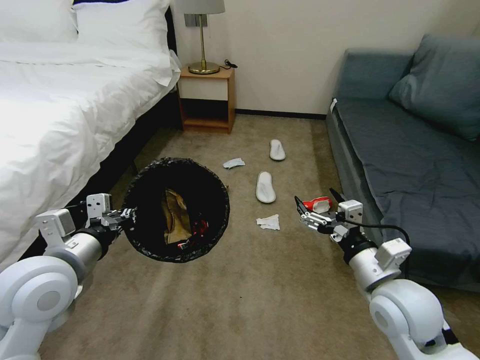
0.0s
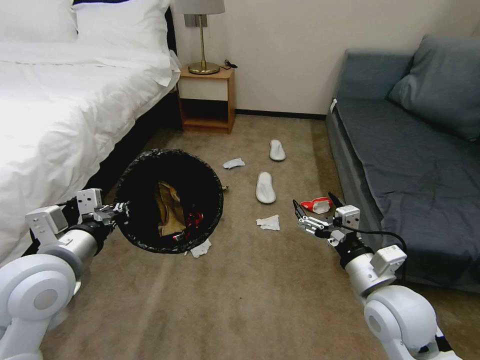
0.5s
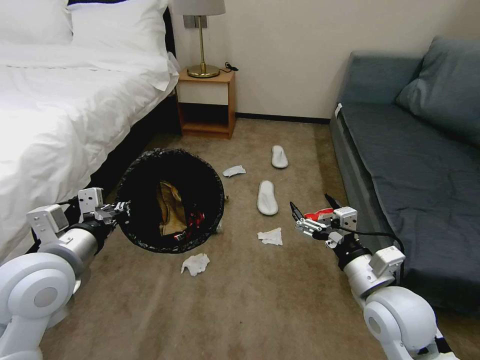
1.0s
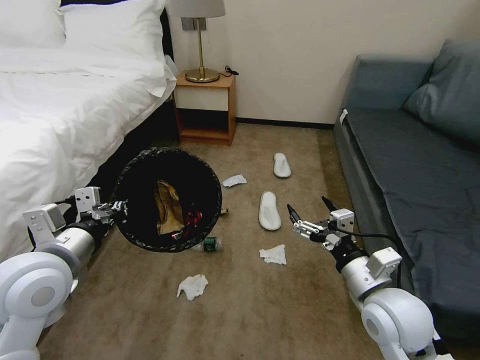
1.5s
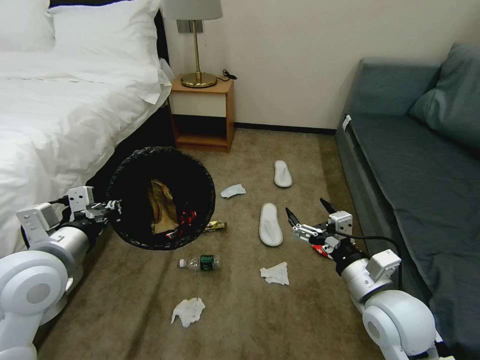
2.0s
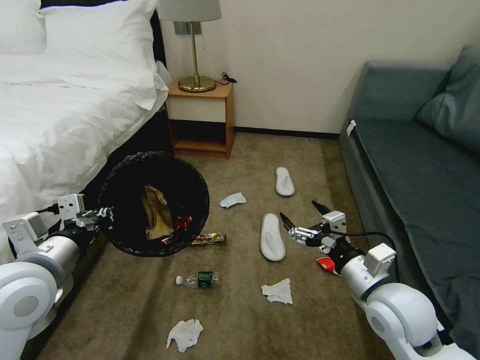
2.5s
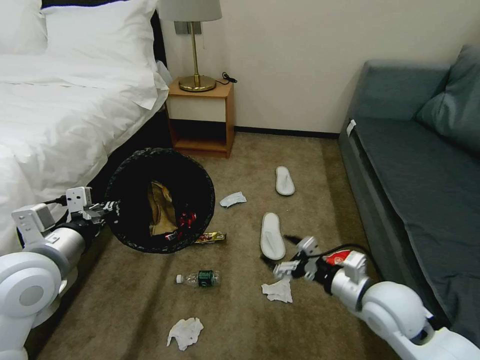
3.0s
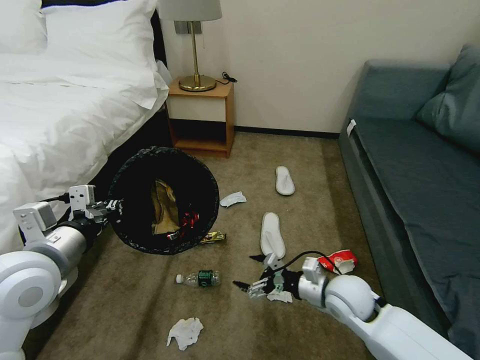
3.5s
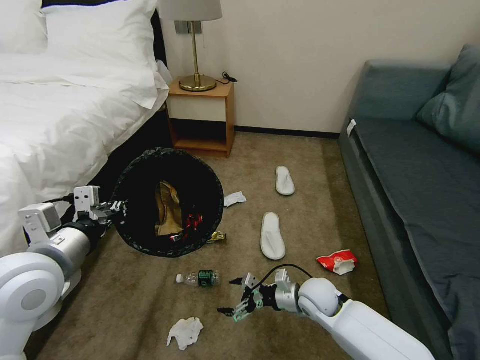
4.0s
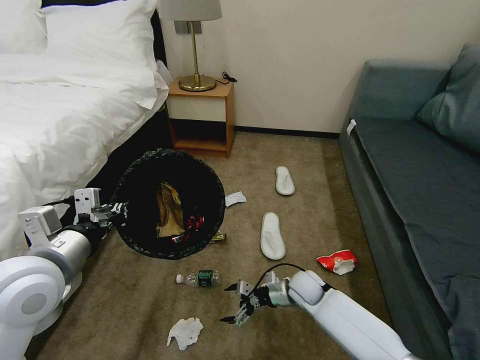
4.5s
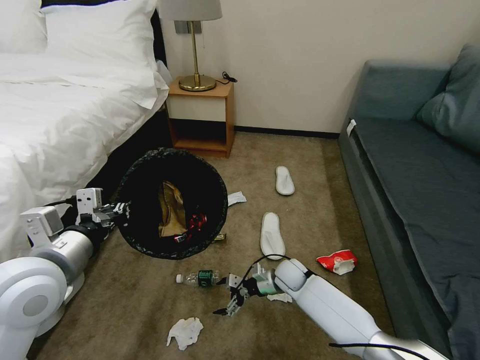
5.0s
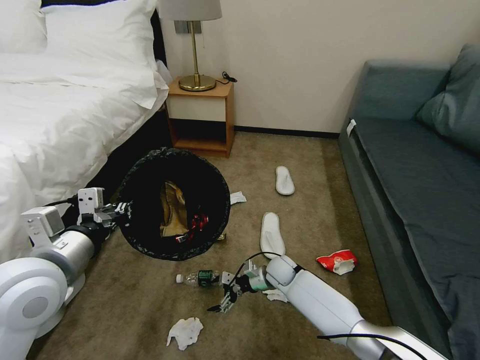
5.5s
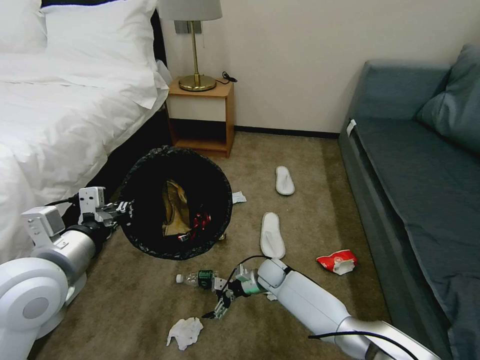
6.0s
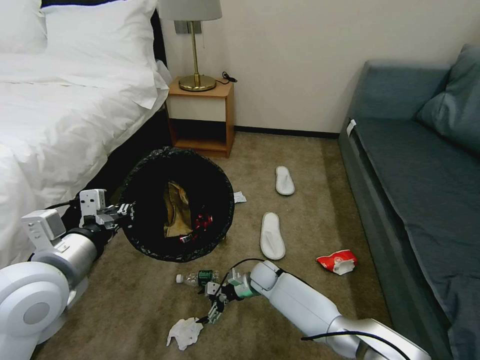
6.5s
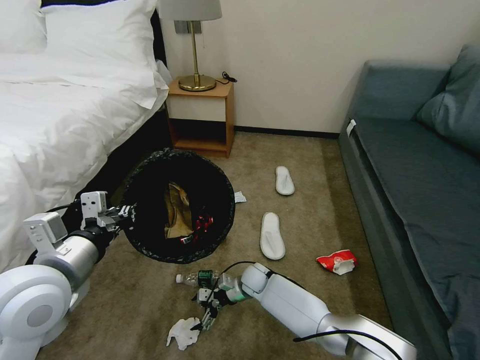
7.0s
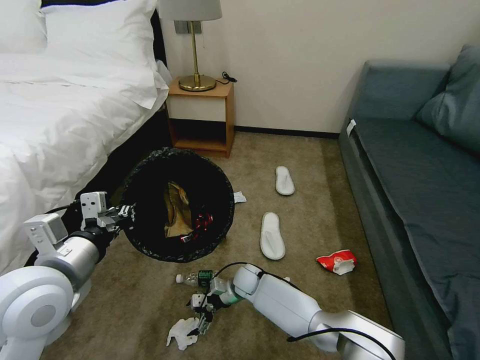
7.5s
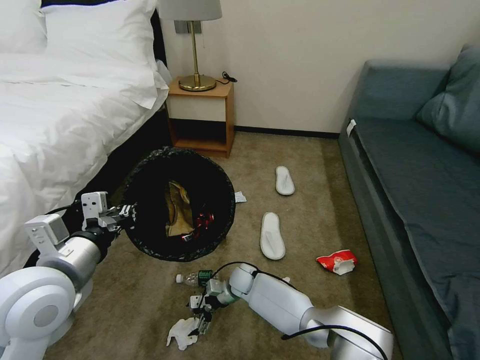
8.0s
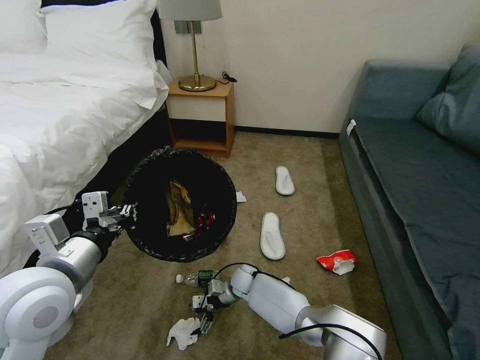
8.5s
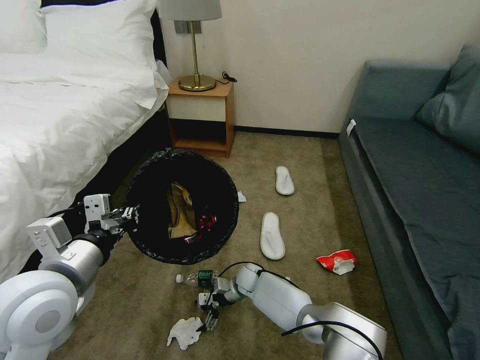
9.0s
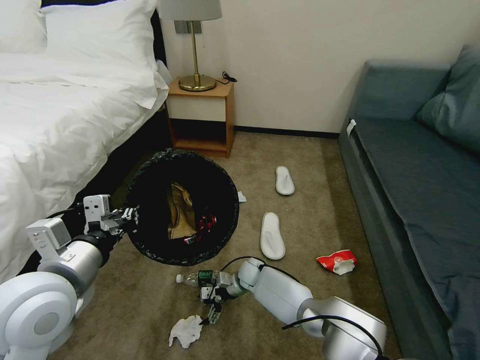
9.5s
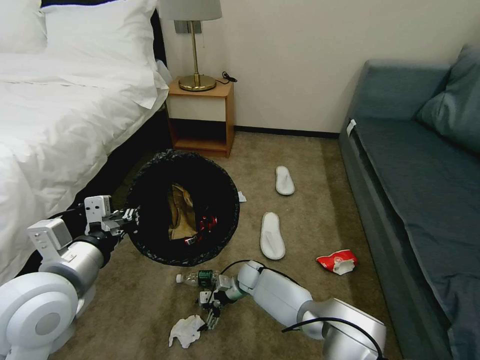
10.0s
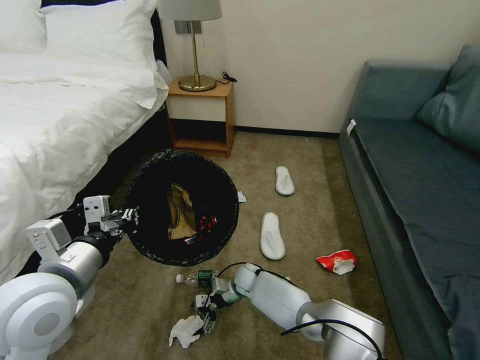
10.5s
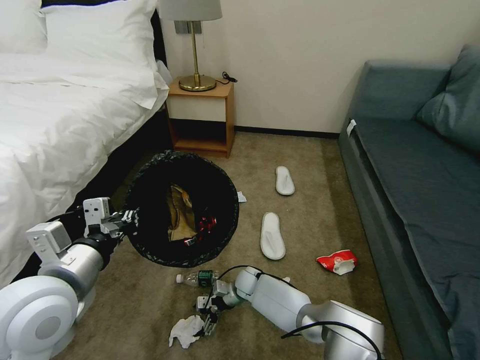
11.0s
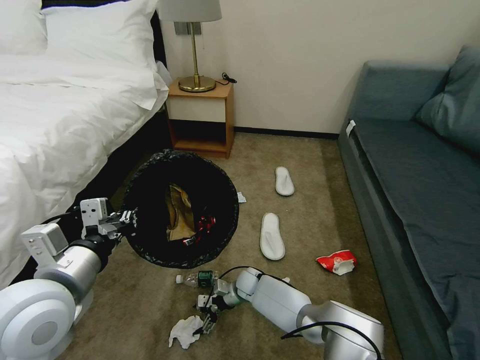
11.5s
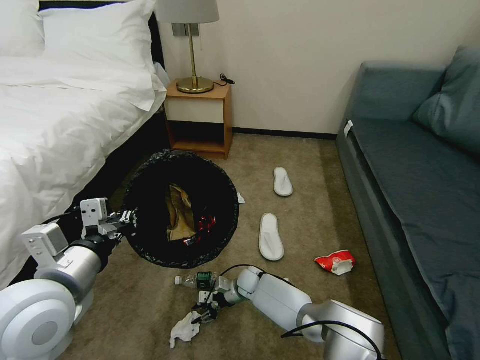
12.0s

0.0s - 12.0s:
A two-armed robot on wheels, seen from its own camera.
Task of the whole recording: Pick up the trash bin, then pick up the garbage on the floor and place it into the trash bin.
2.0s - 4.0s: The right gripper heads downward and forward, covering some 20 cm.
4.0s - 6.0s: The right gripper is displaced forward, to the left and downward by some 15 cm.
6.0s - 8.0s: The right gripper is displaced to the left by some 10 cm.
8.0s - 10.0s: The grippers move only a little.
10.0s - 12.0s: The right gripper closes up.

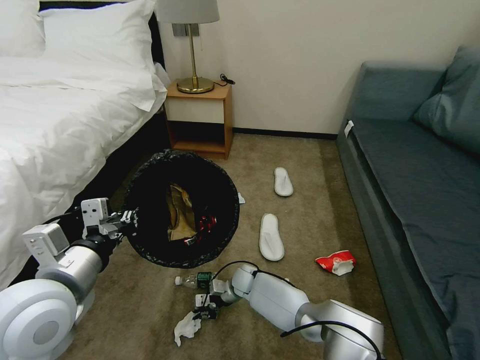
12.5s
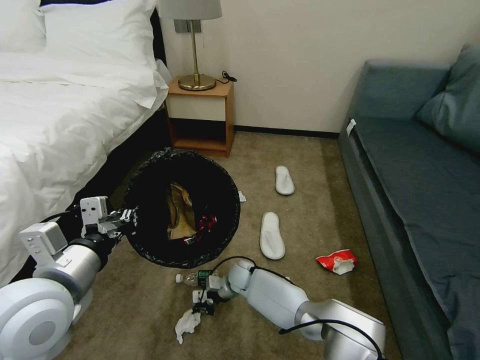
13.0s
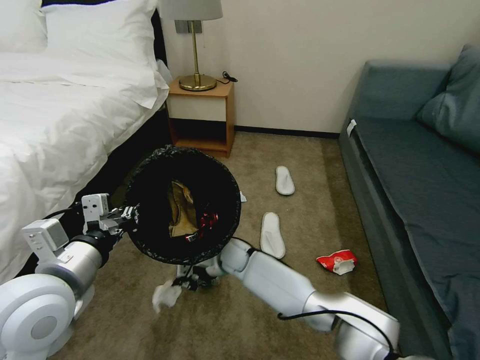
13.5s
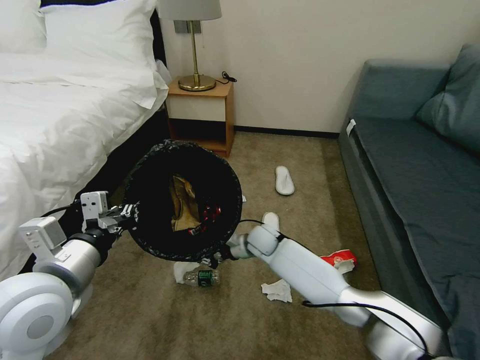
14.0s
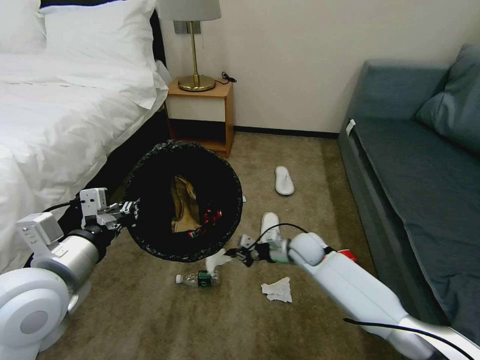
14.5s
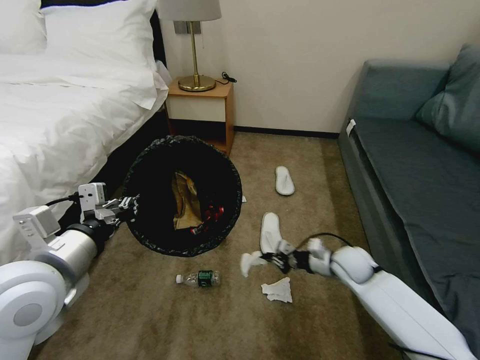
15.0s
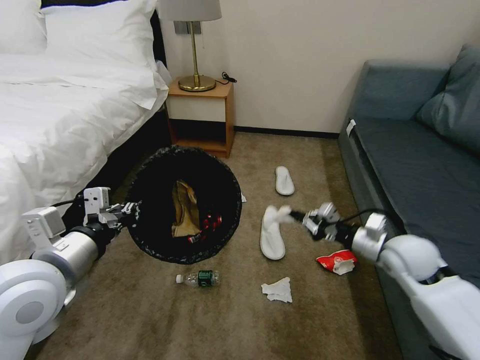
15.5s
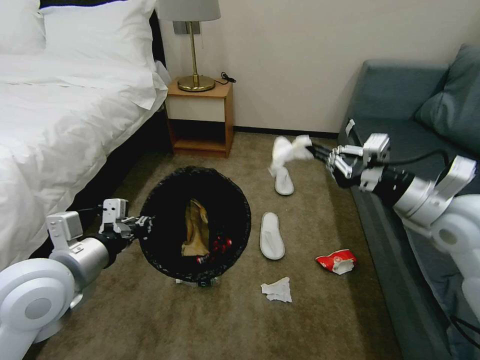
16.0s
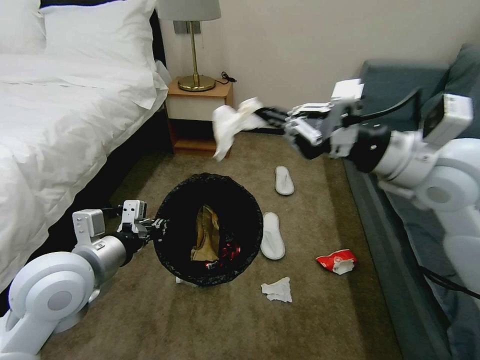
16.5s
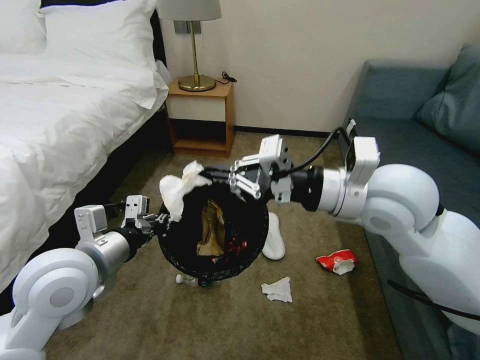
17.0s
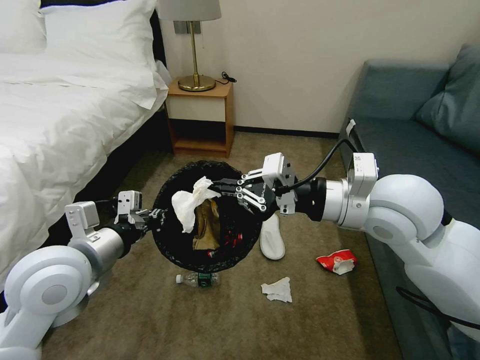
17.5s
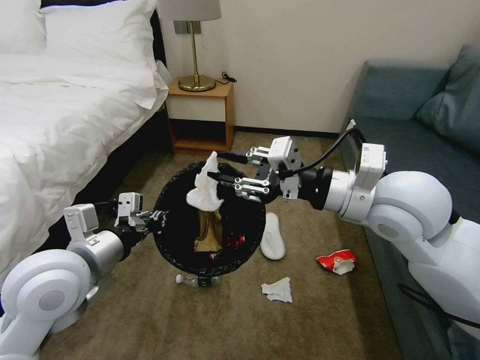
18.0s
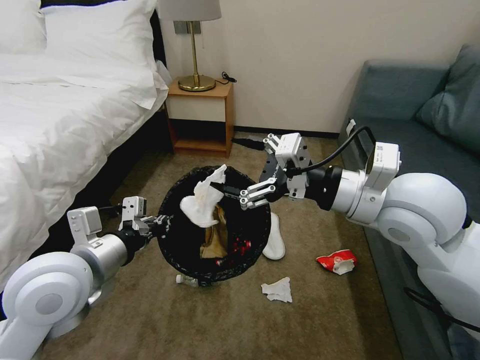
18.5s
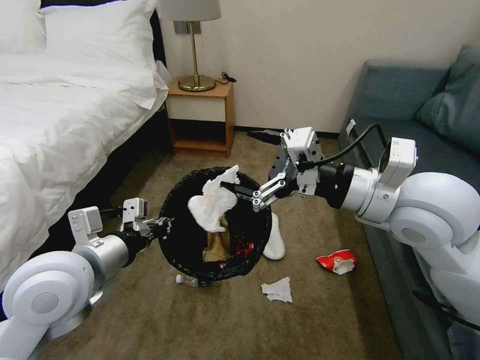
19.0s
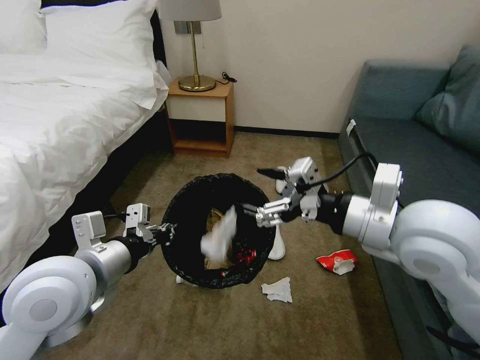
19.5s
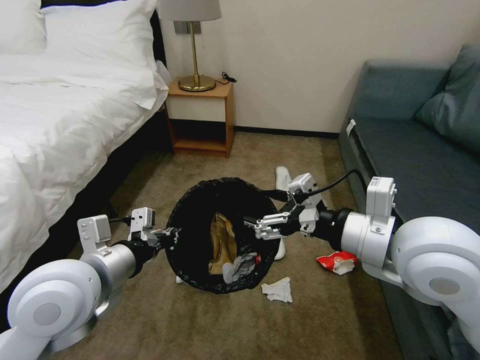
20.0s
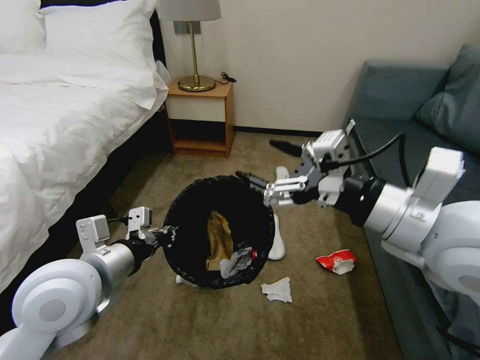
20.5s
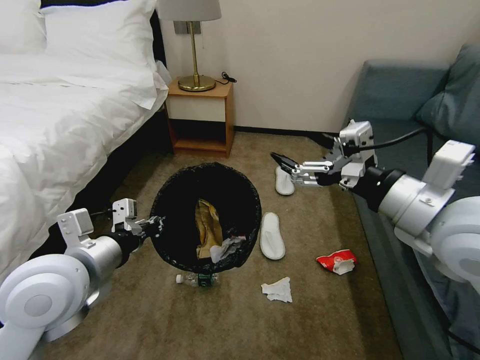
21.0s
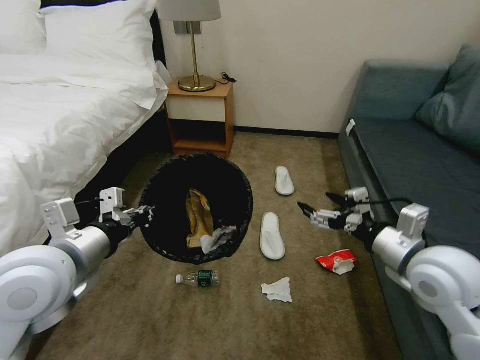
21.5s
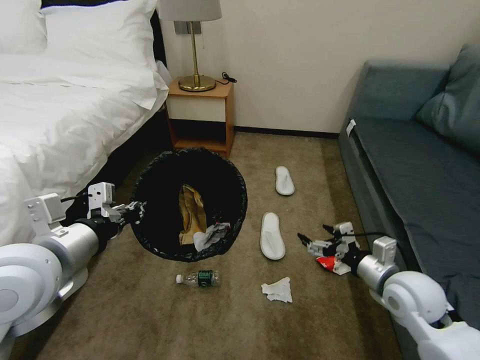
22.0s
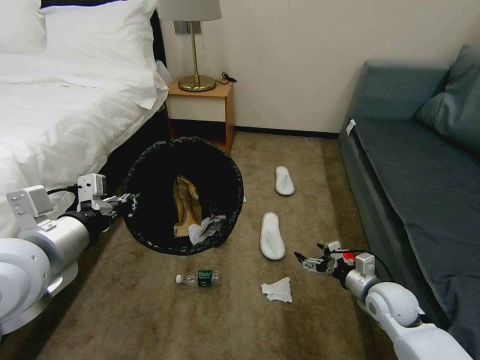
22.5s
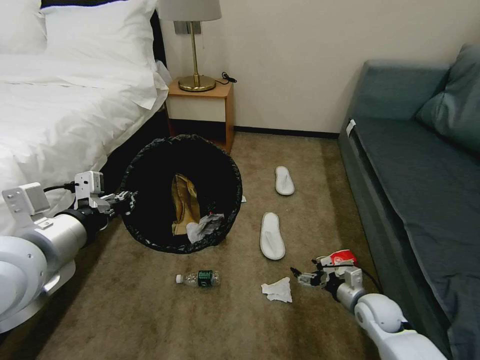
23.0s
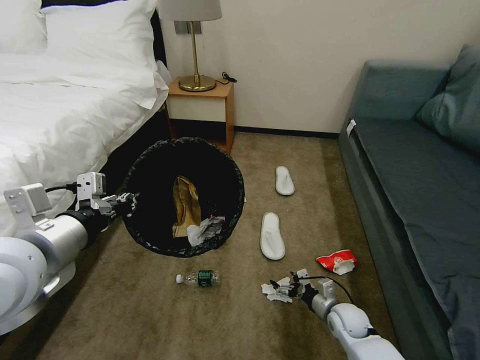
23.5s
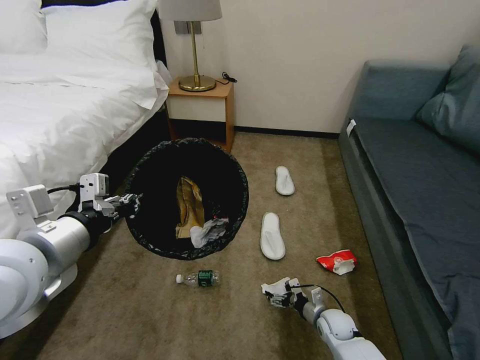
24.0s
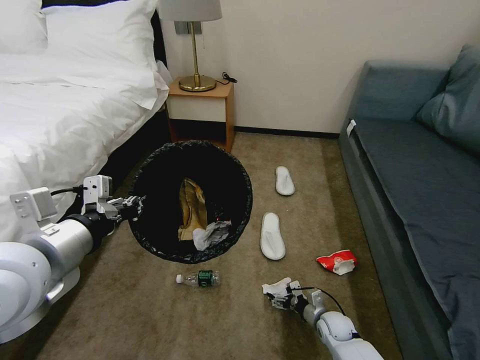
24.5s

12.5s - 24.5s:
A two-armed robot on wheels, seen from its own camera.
Task of the whole recording: Pick up the trash bin, then pick up the garbage on the floor and place it into the trash bin.
12.5s - 14.5s: The right gripper travels upward and to the right by approximately 25 cm.
14.5s - 16.5s: The right gripper shifts some 35 cm upward.
16.5s - 18.5s: The right gripper is displaced to the left by some 5 cm, and opens its fingers.
18.5s - 20.5s: The right gripper goes about 5 cm backward.
20.5s - 22.5s: The right gripper heads downward, covering approximately 35 cm. The left gripper heads upward, covering approximately 5 cm.
22.5s - 24.5s: The right gripper shifts approximately 20 cm downward.

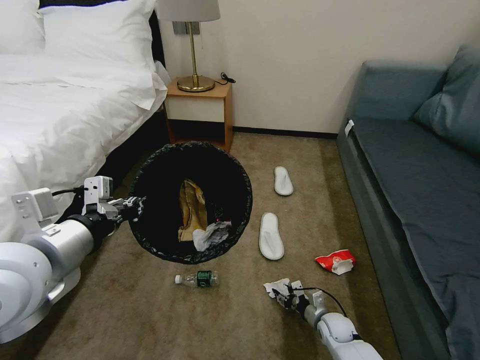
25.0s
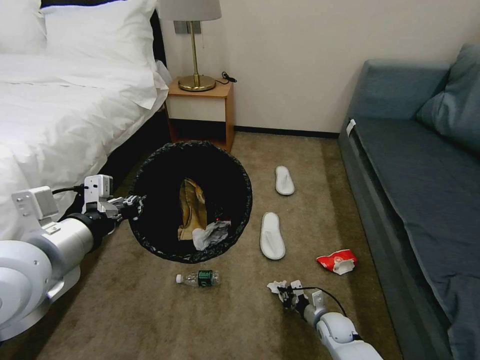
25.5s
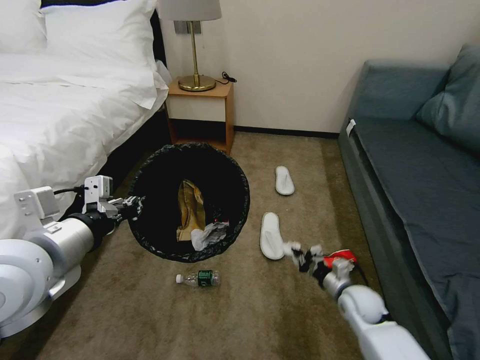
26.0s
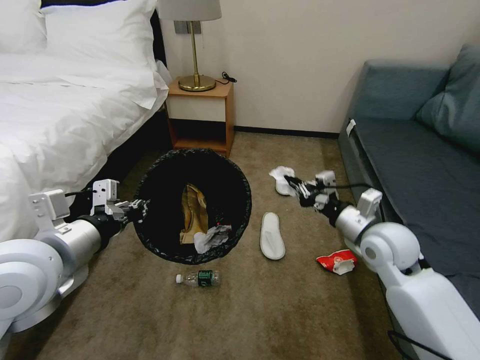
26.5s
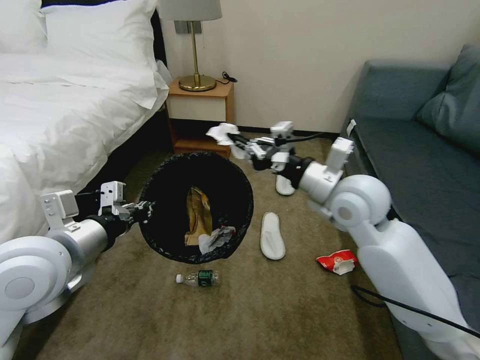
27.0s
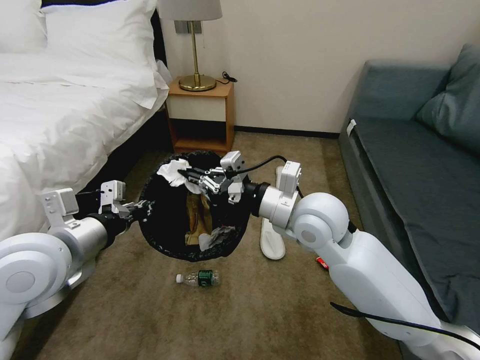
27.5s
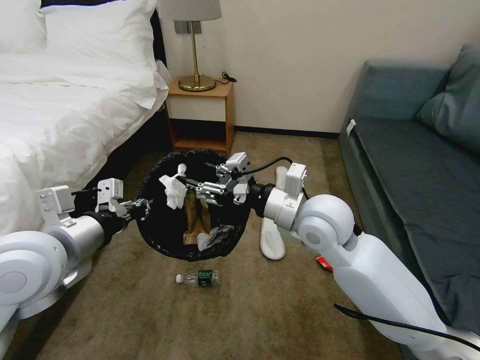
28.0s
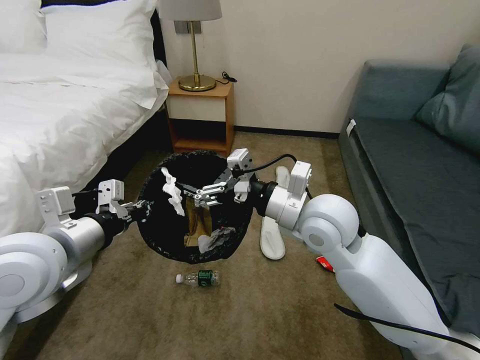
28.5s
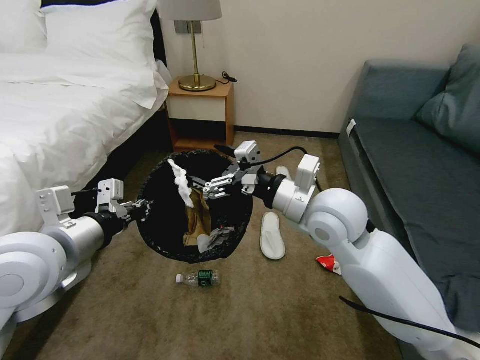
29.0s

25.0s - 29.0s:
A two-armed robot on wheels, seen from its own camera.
Task of the whole recording: Pick up the trash bin, then pick up the garbage on the floor and place it into the trash bin.
25.0s - 27.0s: The right gripper moves upward, some 50 cm, and closes its fingers.
27.0s - 29.0s: The right gripper travels to the left by about 5 cm, and opens up.
